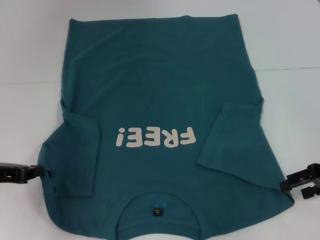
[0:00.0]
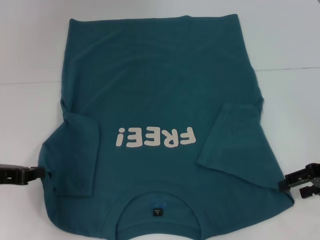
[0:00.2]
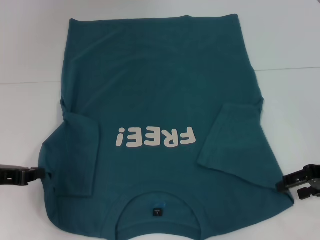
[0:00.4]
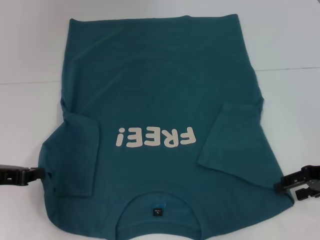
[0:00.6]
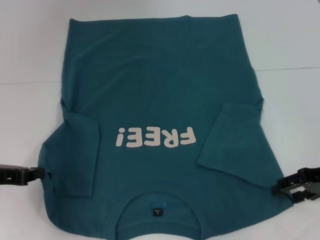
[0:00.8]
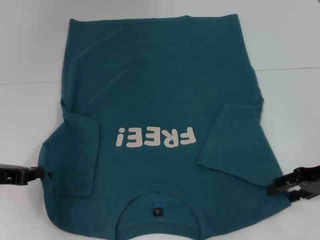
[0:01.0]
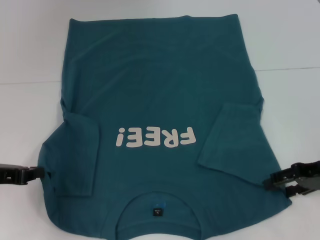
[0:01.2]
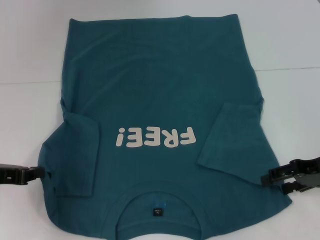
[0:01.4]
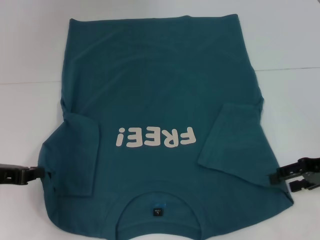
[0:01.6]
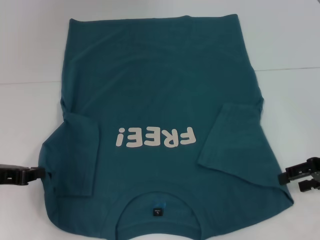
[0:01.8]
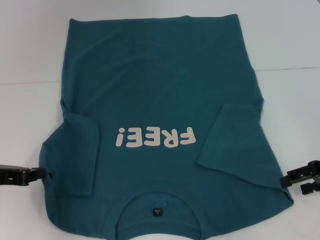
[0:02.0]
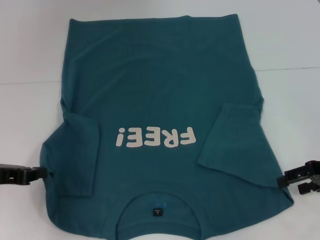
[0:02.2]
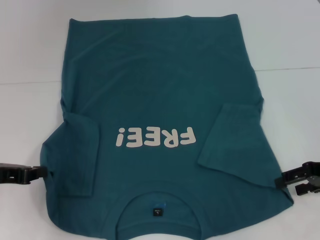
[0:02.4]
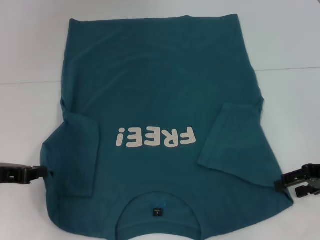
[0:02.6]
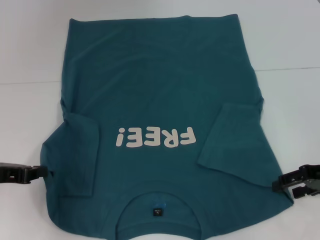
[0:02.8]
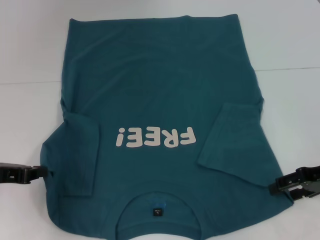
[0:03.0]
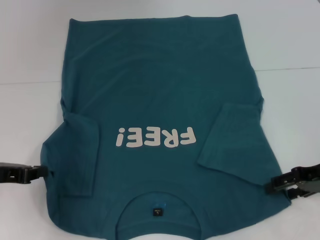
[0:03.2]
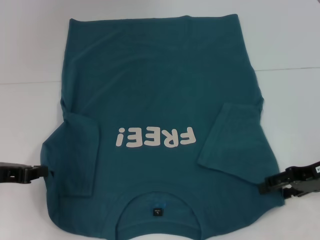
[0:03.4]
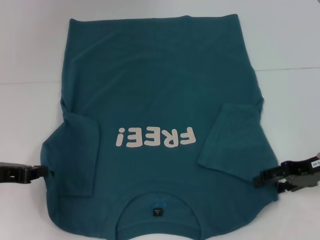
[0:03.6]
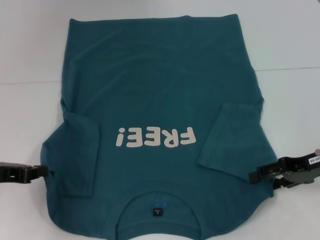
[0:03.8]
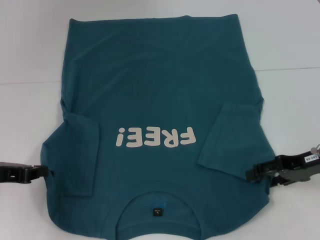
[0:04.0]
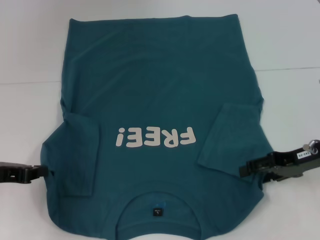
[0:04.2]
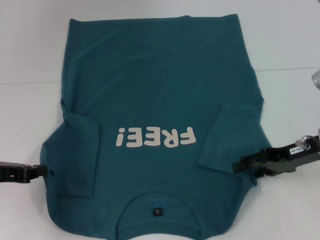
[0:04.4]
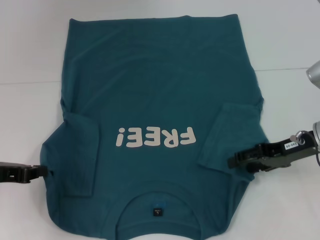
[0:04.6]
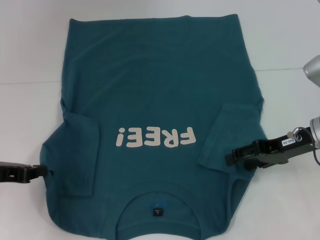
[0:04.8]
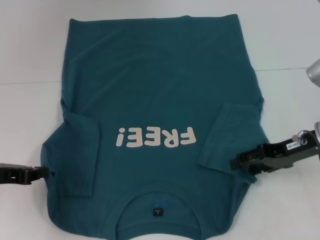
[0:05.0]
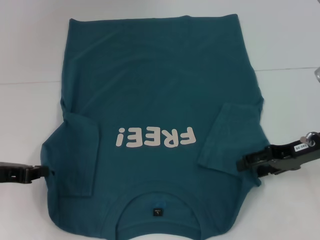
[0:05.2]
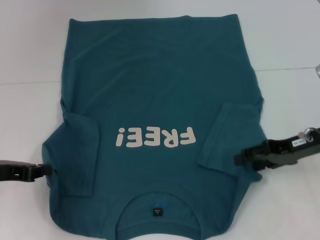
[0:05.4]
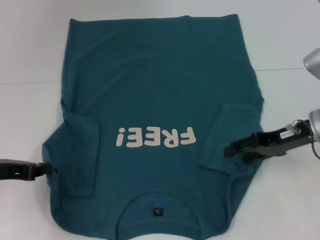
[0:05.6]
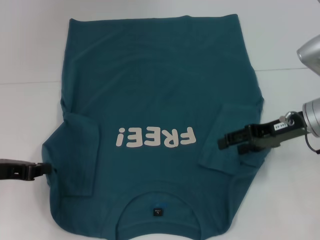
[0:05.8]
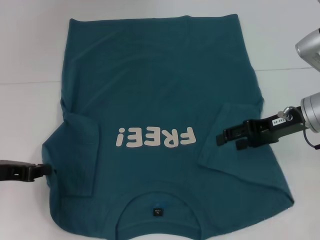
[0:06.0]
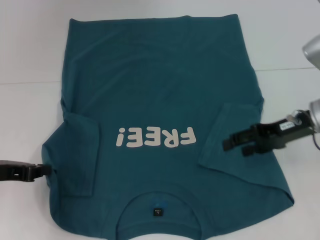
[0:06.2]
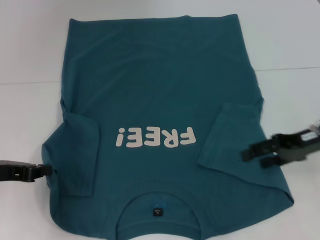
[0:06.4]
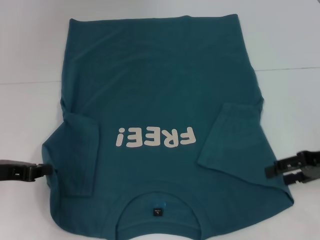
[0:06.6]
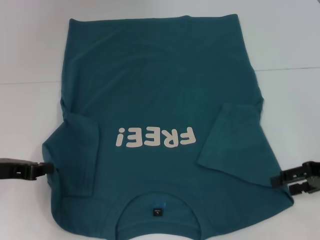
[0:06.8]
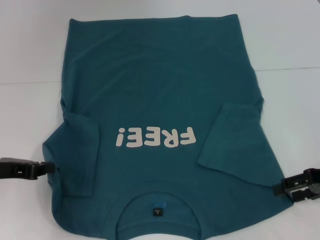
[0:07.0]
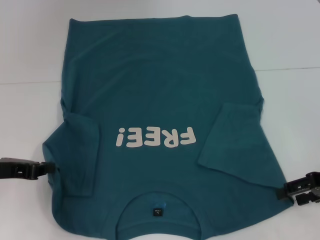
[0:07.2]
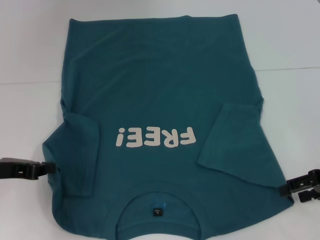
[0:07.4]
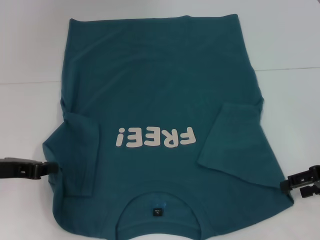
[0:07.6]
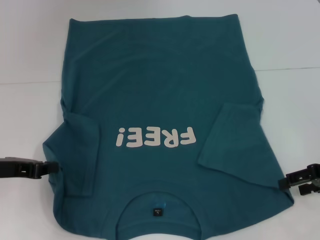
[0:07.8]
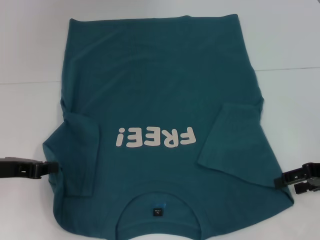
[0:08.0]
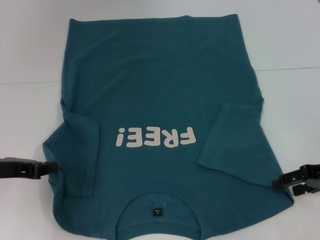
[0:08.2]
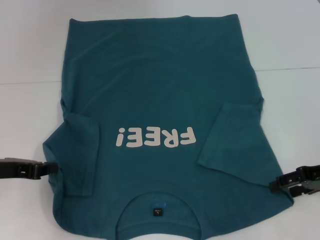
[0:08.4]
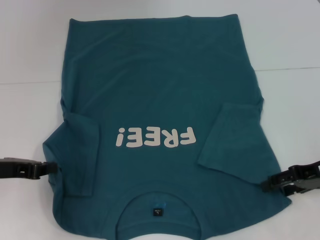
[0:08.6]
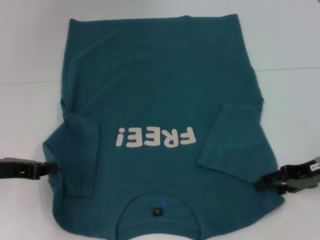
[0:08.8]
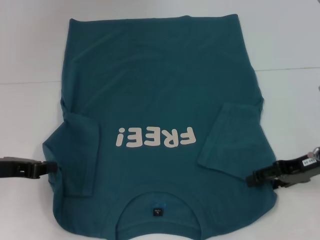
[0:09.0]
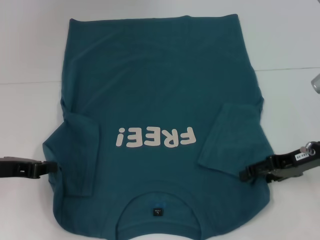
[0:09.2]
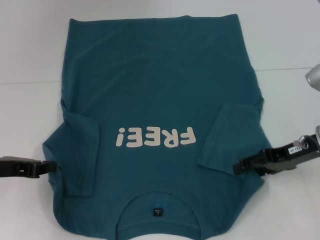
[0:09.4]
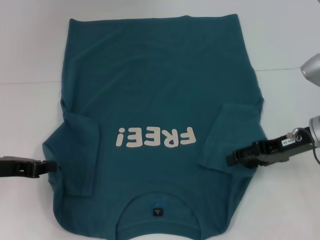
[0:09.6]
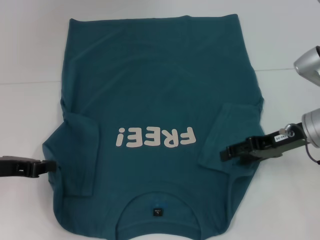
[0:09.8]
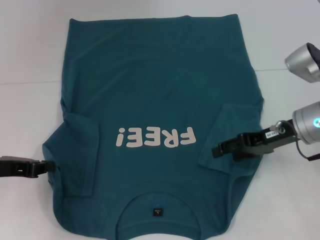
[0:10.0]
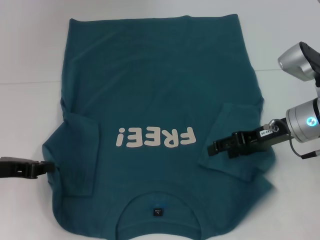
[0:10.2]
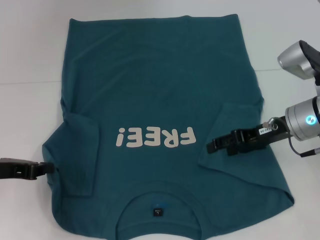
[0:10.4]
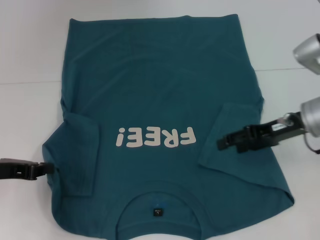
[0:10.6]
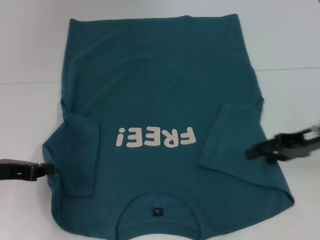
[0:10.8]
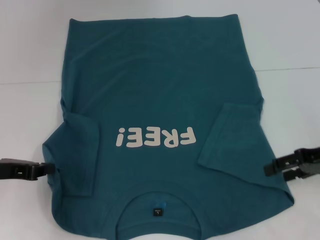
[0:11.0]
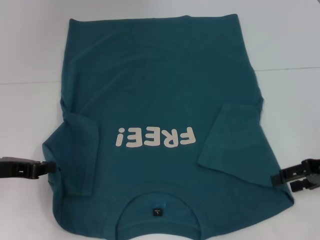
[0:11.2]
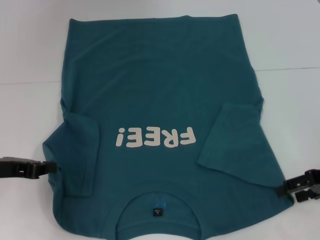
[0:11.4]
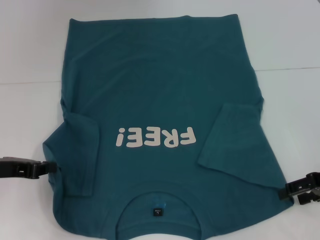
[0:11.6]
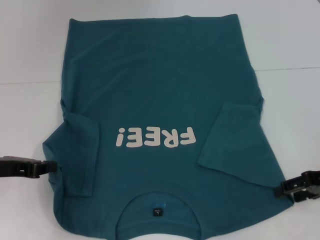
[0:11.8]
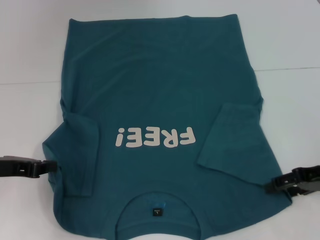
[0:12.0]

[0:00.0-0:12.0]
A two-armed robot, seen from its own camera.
0:00.0 to 0:01.6: There are only small adjustments of the grippers.
0:01.6 to 0:03.0: Neither gripper changes place.
0:03.0 to 0:04.4: The right gripper moves about 5 cm.
0:04.4 to 0:06.0: The right gripper changes place by roughly 5 cm.
0:06.0 to 0:07.6: The right gripper is displaced to the right and backward by about 10 cm.
0:07.6 to 0:09.0: The right gripper changes place by approximately 5 cm.
0:09.0 to 0:10.4: The right gripper shifts approximately 5 cm to the left.
0:10.4 to 0:12.0: The right gripper is displaced to the right and backward by approximately 10 cm.

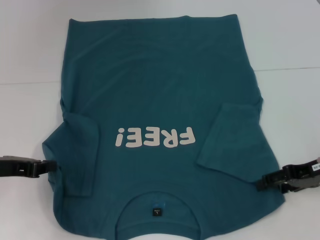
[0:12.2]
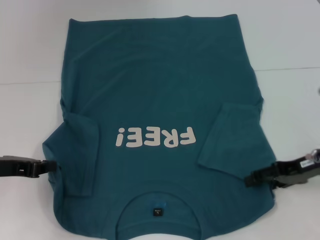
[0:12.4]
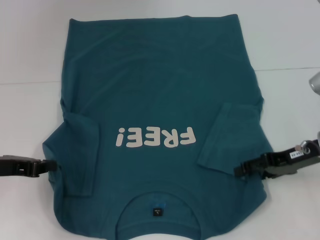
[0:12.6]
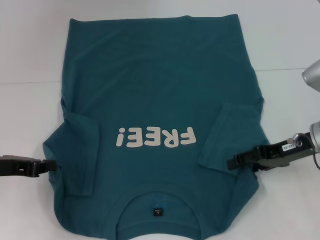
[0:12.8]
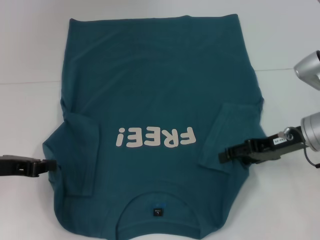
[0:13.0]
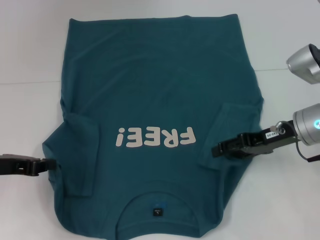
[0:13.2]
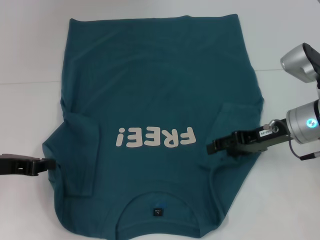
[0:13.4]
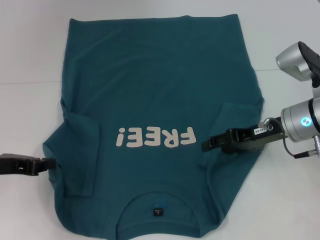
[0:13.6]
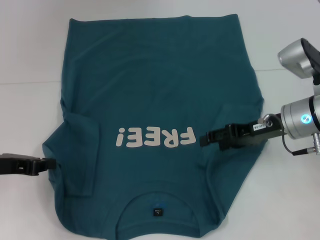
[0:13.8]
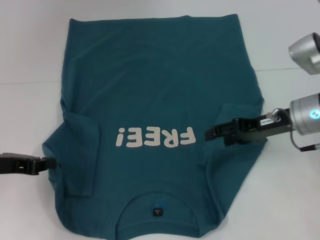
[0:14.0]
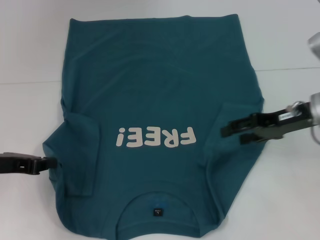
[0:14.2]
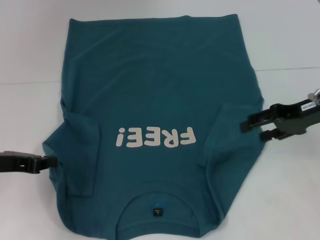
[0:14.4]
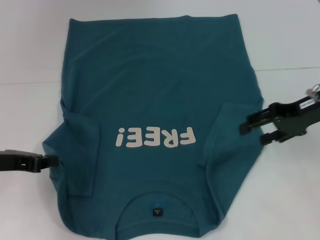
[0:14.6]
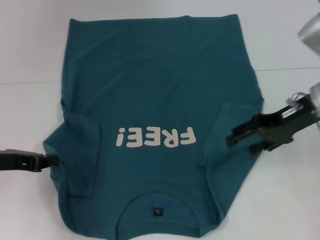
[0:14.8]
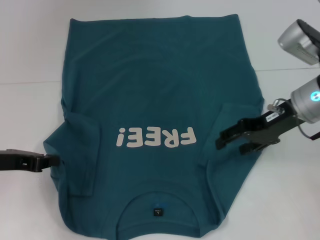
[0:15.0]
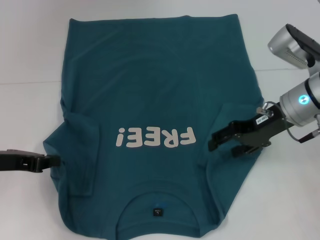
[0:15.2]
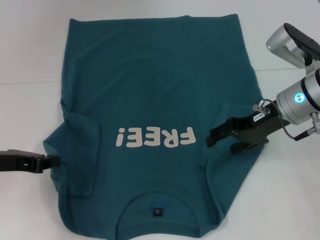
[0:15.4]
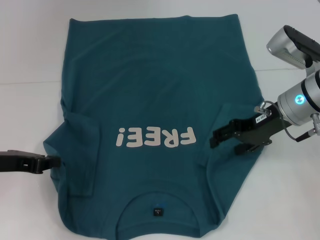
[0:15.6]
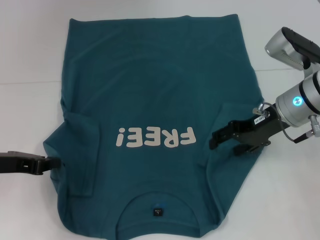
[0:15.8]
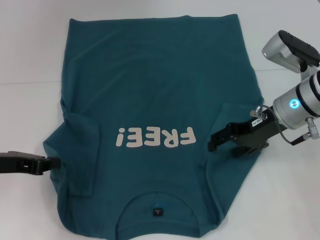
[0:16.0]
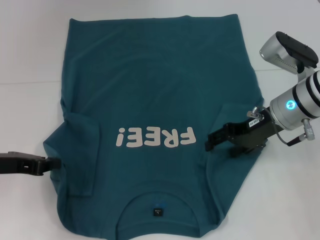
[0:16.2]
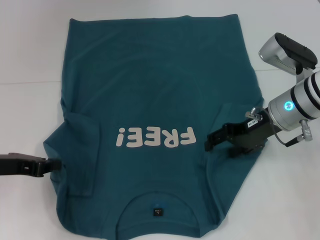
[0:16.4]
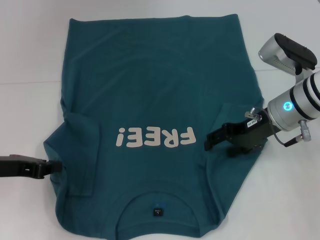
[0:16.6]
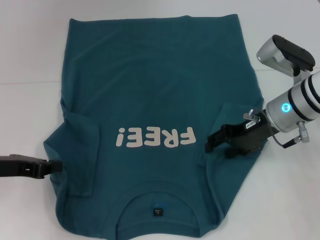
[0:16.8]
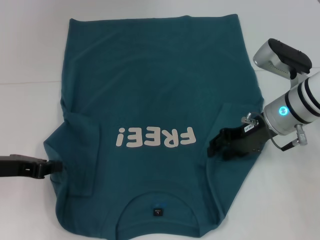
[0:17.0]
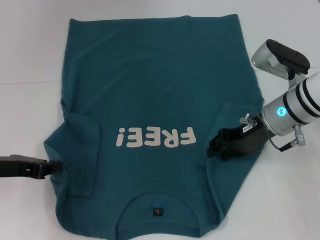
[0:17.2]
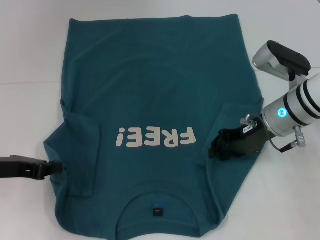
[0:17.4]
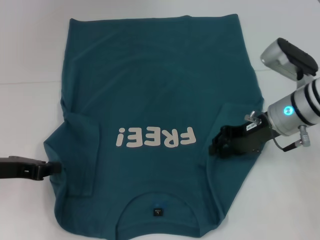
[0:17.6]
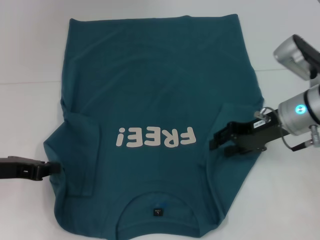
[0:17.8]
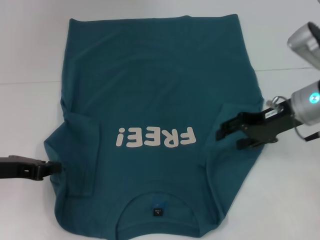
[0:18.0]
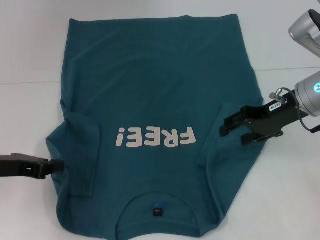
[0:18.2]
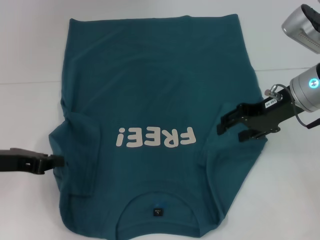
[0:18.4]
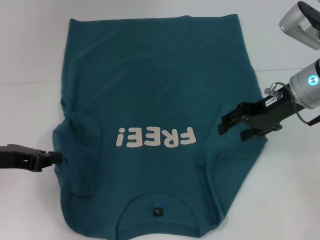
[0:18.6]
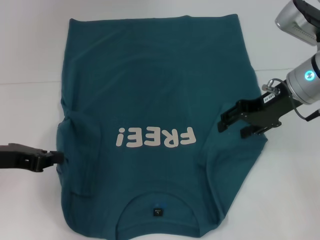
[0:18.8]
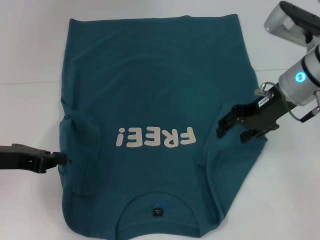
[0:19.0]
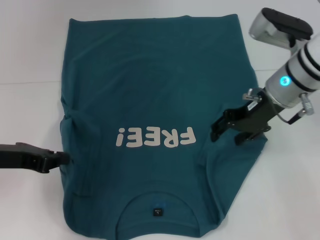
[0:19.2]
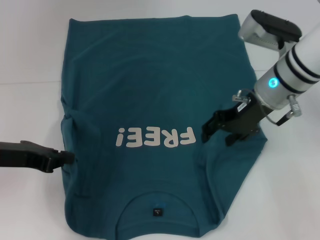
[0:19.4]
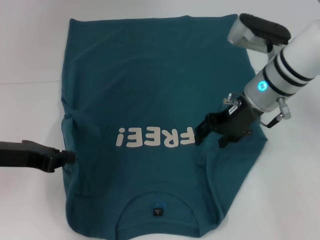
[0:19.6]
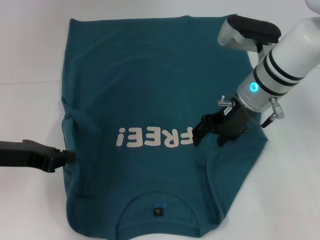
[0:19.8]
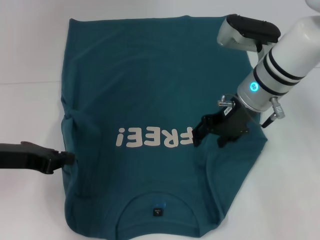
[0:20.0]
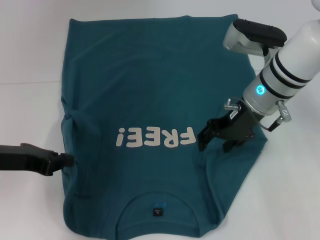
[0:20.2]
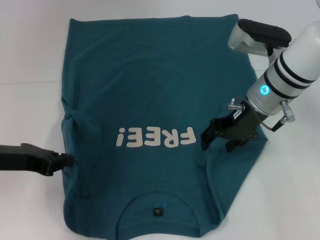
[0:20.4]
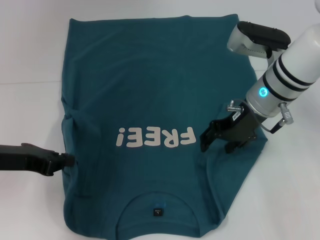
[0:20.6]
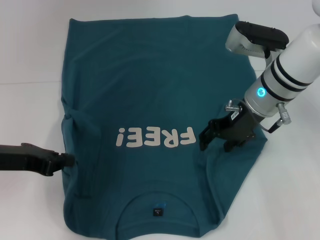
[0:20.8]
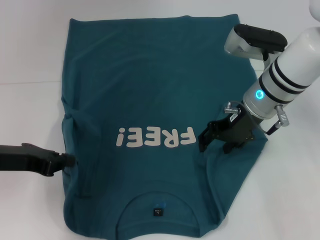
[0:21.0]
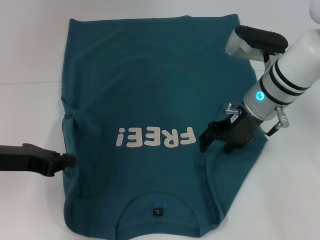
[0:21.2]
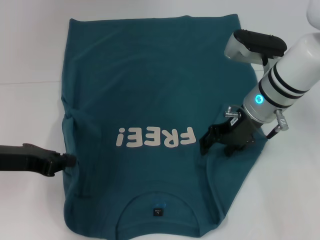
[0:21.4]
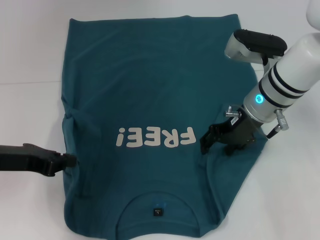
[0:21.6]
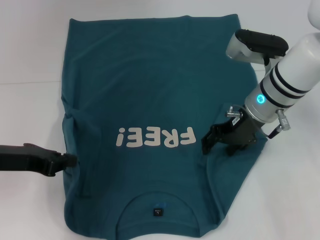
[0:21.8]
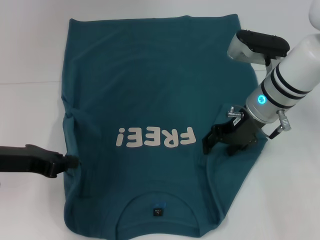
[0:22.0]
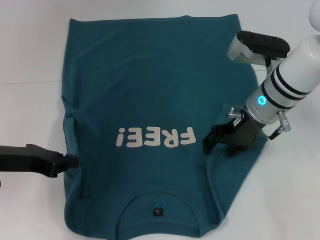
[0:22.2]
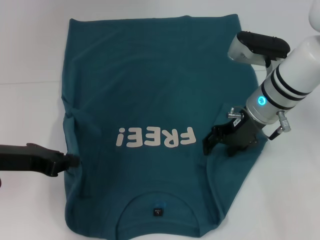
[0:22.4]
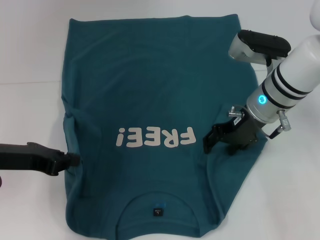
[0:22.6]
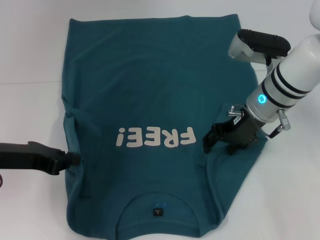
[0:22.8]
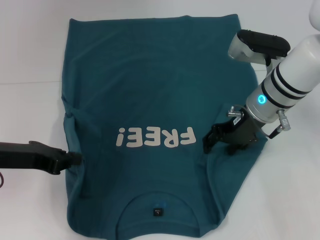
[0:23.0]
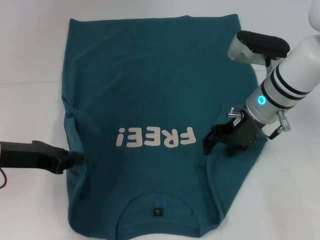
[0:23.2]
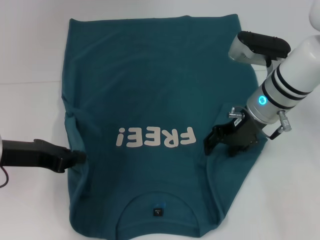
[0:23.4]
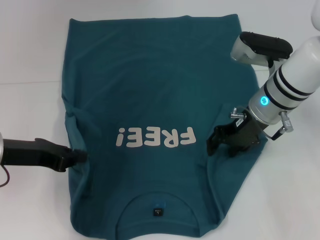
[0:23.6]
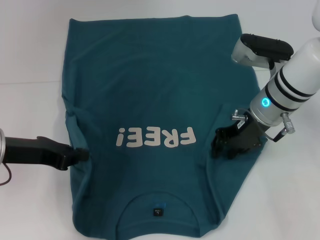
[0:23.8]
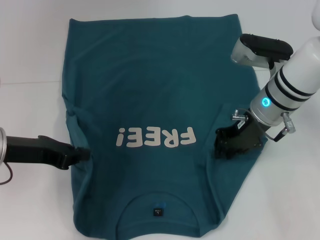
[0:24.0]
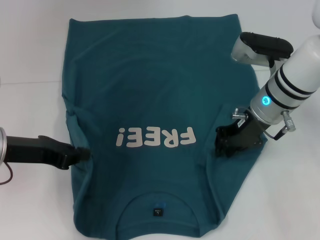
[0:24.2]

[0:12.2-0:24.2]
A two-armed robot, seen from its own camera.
0:12.2 to 0:13.8: The right gripper travels to the left and forward by some 10 cm.
0:15.2 to 0:16.6: The grippers make only small movements.
0:16.6 to 0:18.2: The right gripper ends up some 5 cm from where it was.
0:18.2 to 0:19.8: The right gripper travels to the left by about 10 cm.
0:19.8 to 0:21.2: The grippers stay close to where they were, moving slightly.
0:21.2 to 0:22.6: Both grippers stay about where they are.
0:22.6 to 0:24.2: The right gripper closes.
